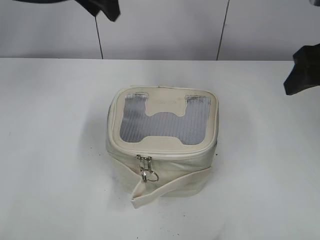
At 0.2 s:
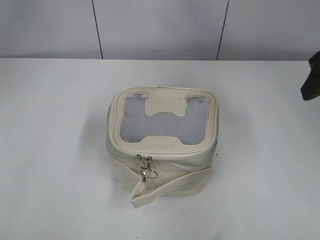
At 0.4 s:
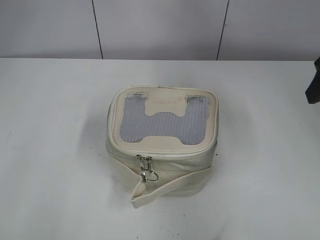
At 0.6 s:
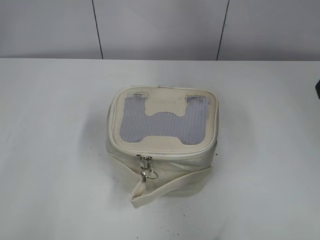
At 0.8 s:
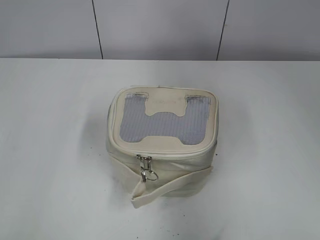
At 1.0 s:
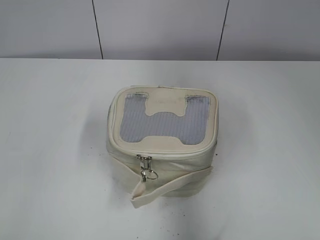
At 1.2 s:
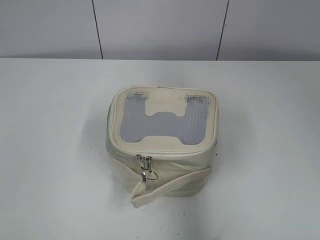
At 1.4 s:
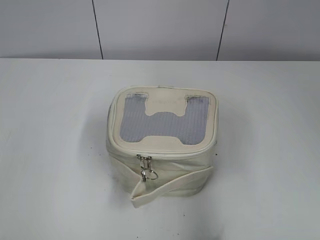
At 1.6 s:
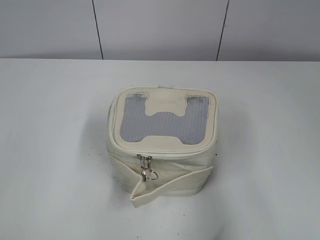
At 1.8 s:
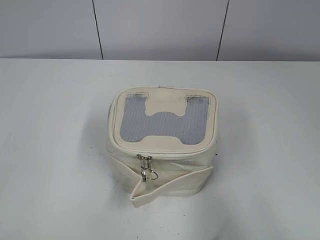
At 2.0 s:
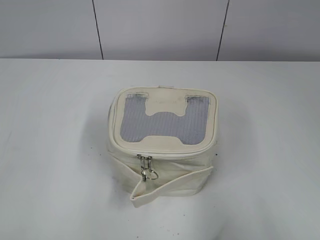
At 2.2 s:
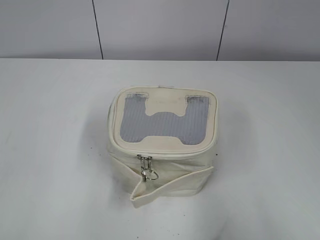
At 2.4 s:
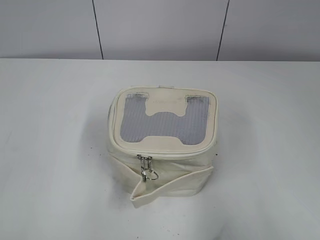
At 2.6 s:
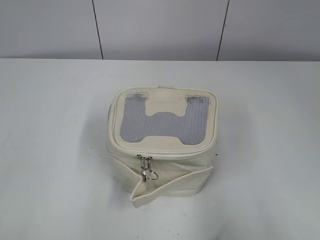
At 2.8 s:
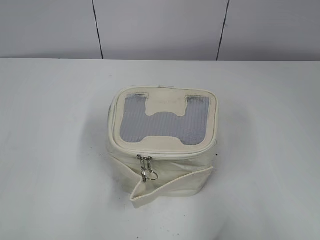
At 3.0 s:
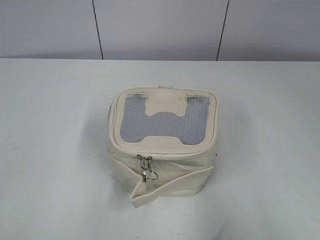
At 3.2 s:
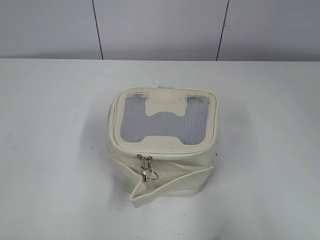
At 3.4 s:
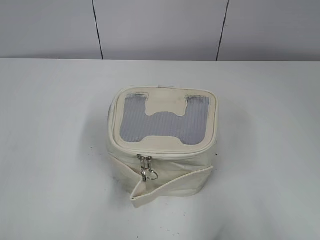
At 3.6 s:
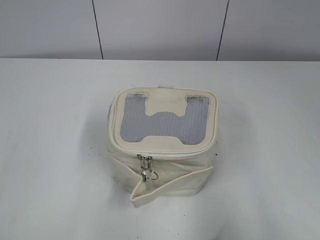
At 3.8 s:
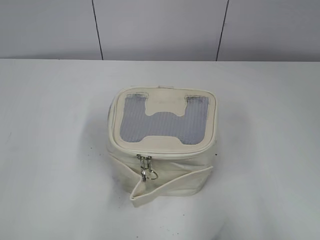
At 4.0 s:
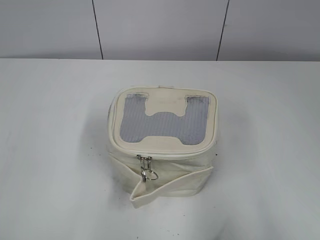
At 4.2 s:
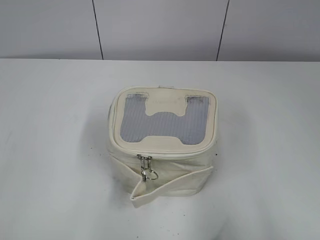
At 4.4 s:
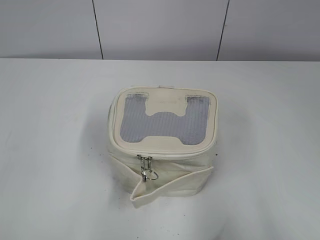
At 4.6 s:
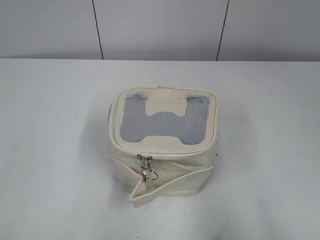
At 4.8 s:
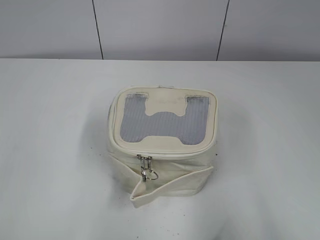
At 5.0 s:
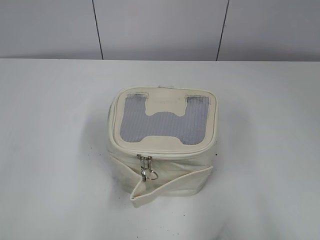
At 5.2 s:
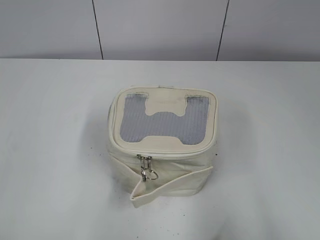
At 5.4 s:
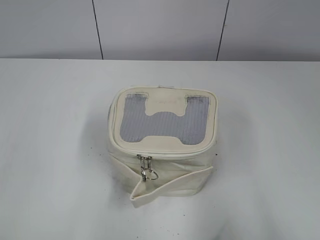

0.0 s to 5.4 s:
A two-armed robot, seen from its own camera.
0.0 to 1.4 s: The right gripper is displaced backward by roughly 15 cm. Meanwhile the left gripper moves backward and to the left, about 35 cm.
1.4 to 2.8 s: The left gripper goes some 10 cm backward and downward. Meanwhile the right gripper heads backward, covering about 10 cm.
4.0 to 5.4 s: Neither gripper changes place.
